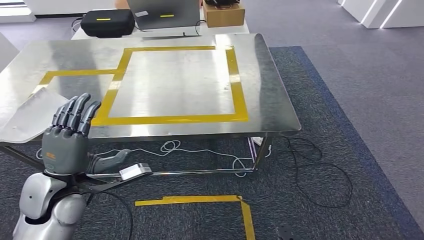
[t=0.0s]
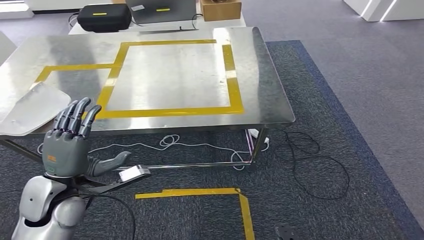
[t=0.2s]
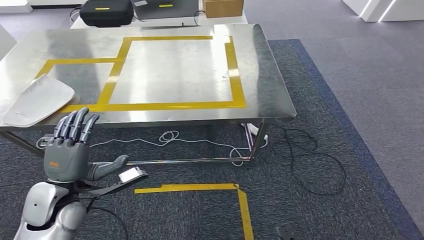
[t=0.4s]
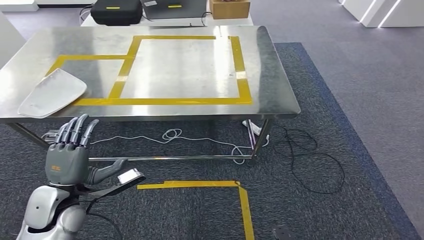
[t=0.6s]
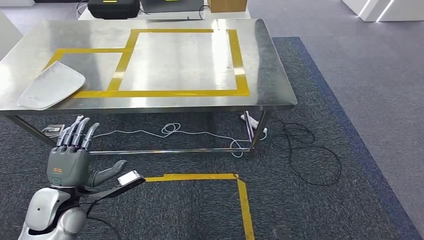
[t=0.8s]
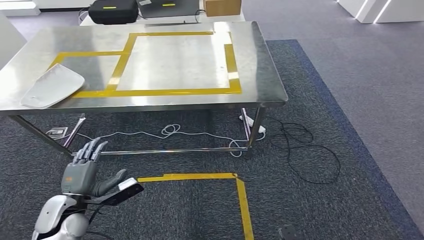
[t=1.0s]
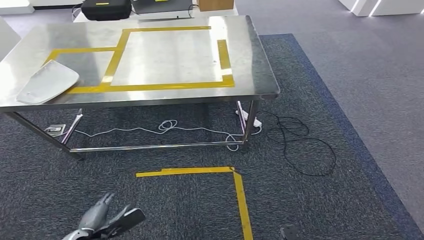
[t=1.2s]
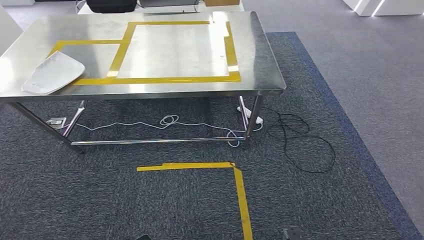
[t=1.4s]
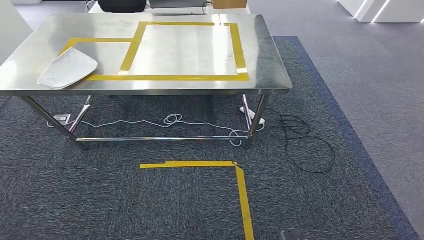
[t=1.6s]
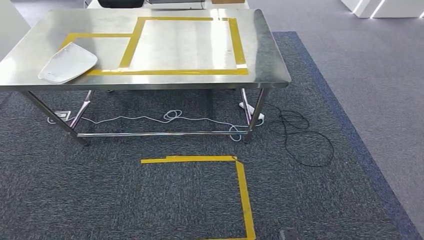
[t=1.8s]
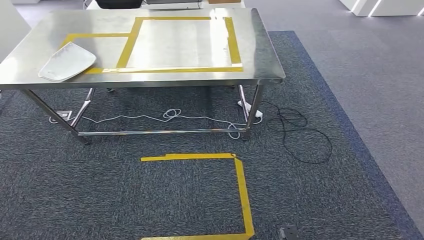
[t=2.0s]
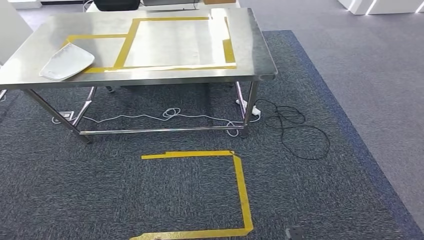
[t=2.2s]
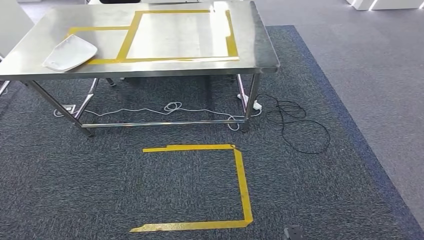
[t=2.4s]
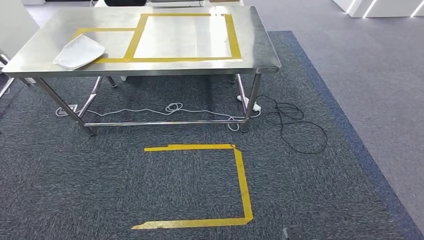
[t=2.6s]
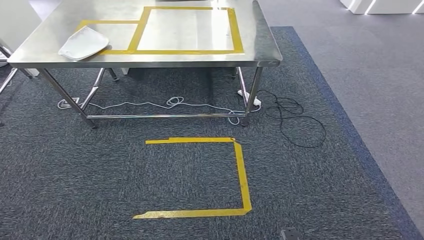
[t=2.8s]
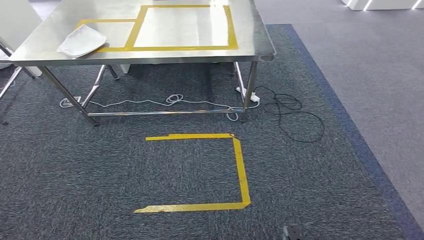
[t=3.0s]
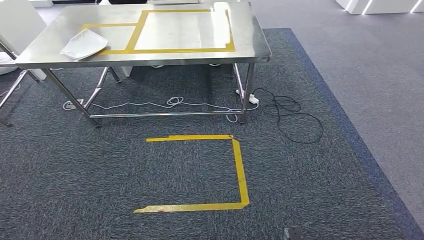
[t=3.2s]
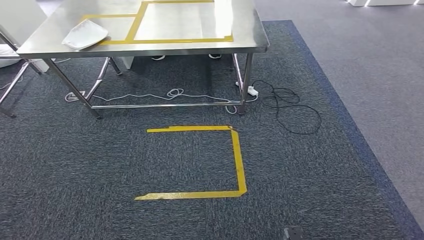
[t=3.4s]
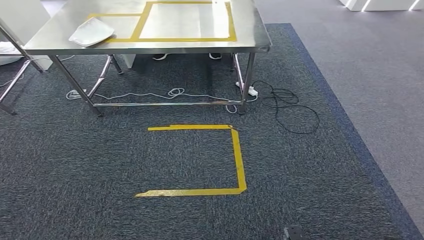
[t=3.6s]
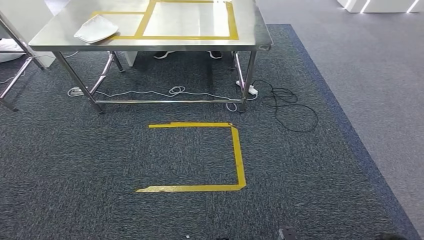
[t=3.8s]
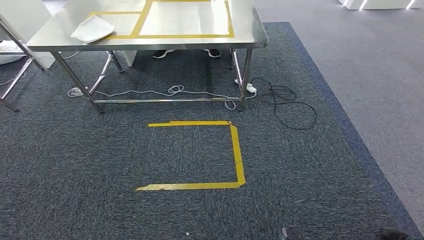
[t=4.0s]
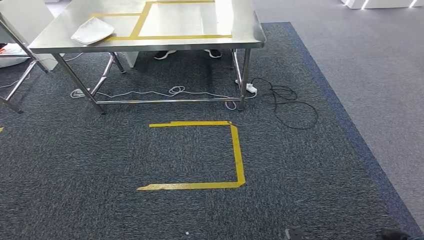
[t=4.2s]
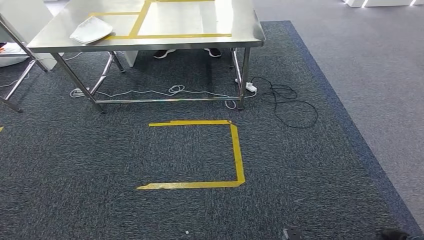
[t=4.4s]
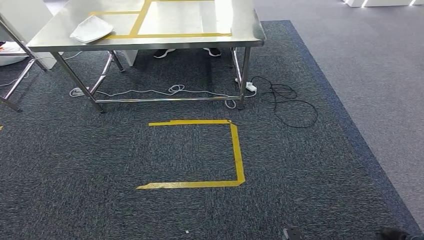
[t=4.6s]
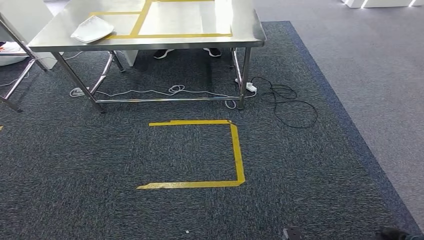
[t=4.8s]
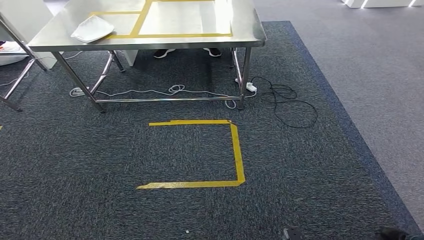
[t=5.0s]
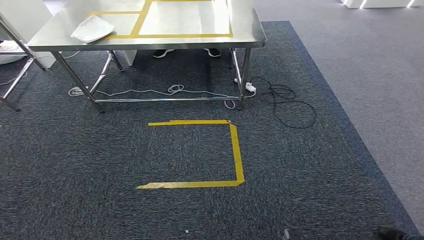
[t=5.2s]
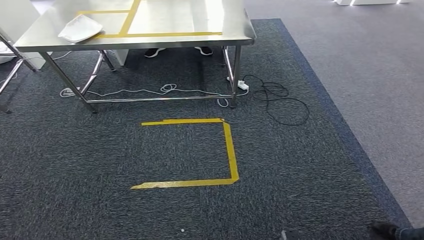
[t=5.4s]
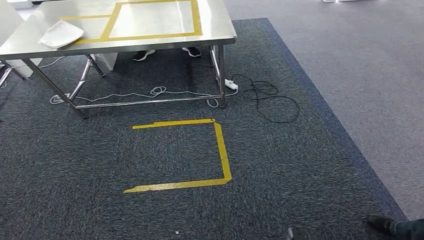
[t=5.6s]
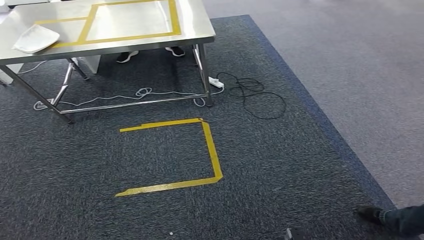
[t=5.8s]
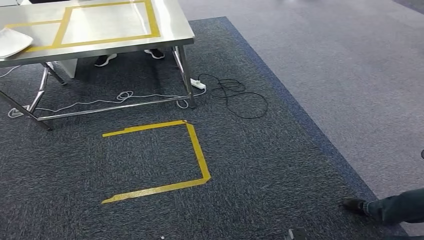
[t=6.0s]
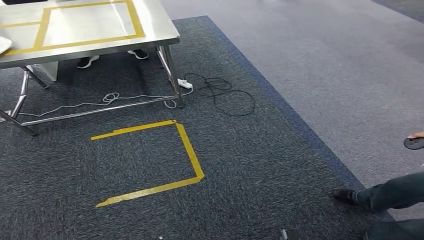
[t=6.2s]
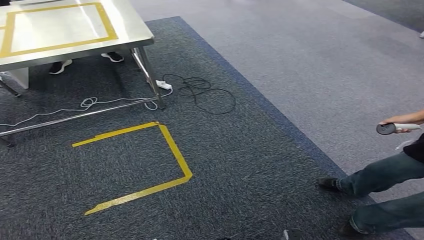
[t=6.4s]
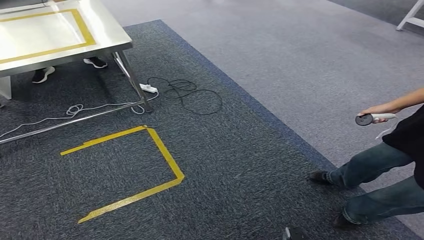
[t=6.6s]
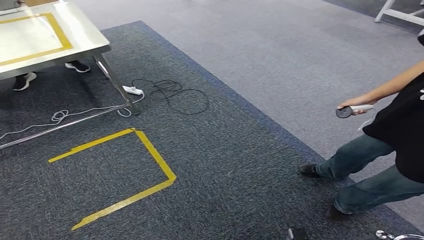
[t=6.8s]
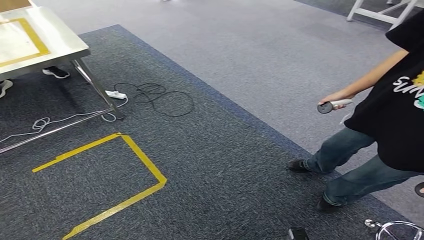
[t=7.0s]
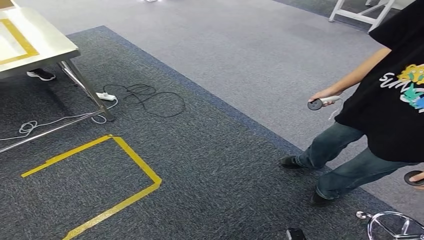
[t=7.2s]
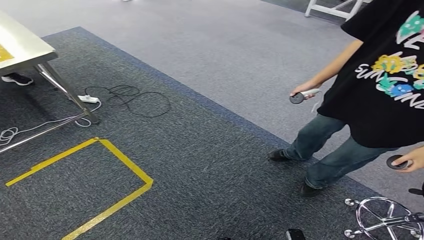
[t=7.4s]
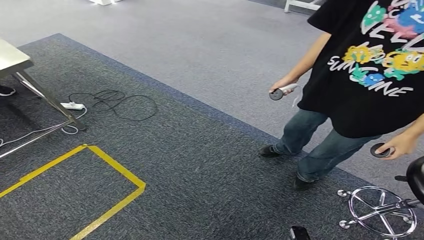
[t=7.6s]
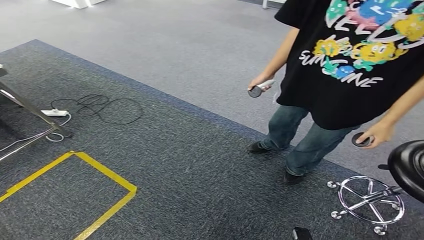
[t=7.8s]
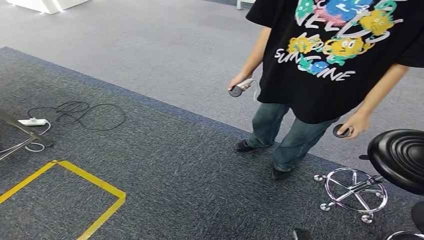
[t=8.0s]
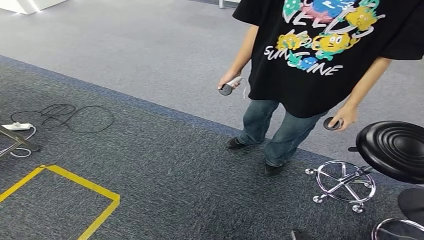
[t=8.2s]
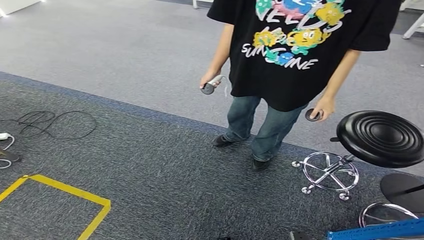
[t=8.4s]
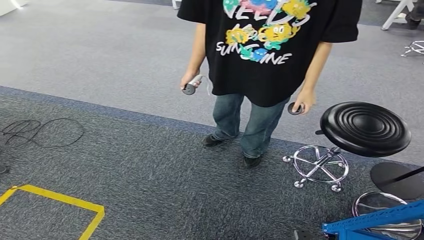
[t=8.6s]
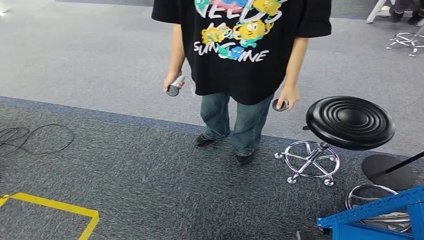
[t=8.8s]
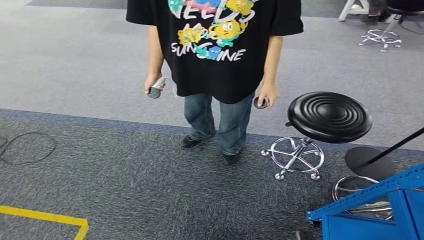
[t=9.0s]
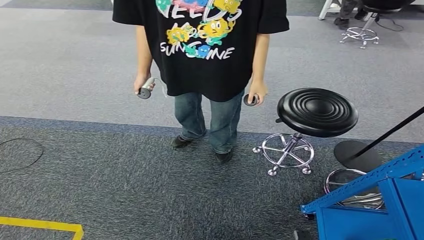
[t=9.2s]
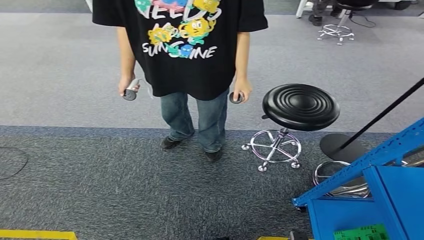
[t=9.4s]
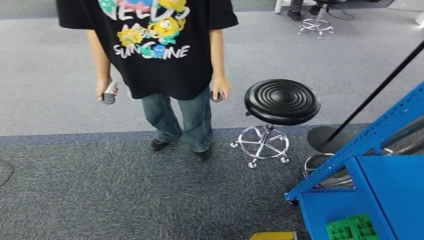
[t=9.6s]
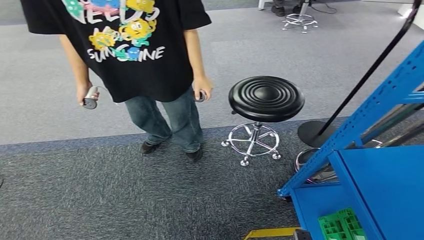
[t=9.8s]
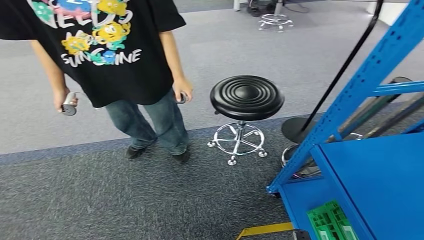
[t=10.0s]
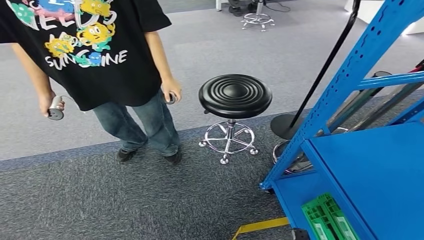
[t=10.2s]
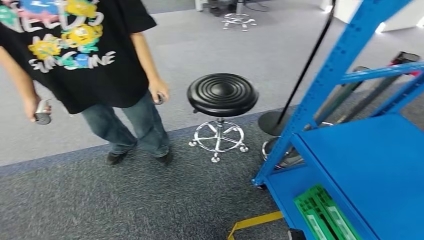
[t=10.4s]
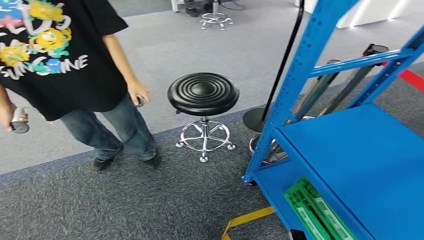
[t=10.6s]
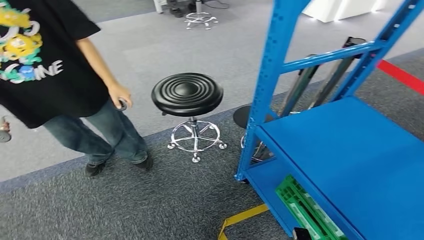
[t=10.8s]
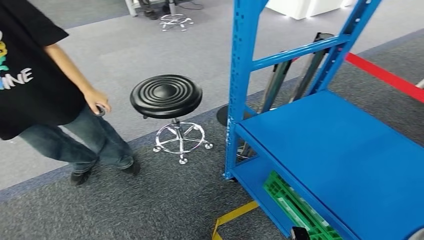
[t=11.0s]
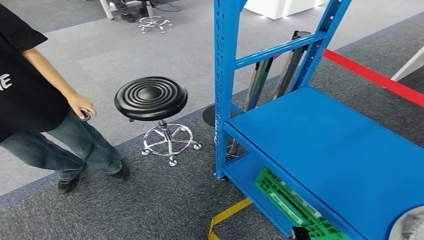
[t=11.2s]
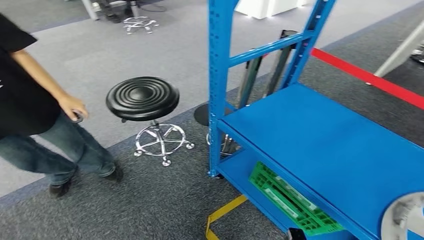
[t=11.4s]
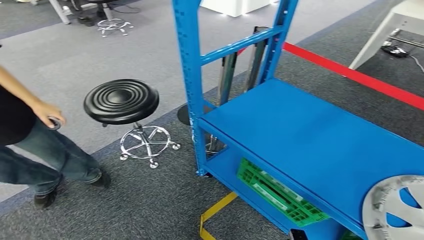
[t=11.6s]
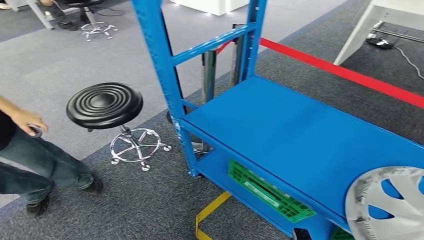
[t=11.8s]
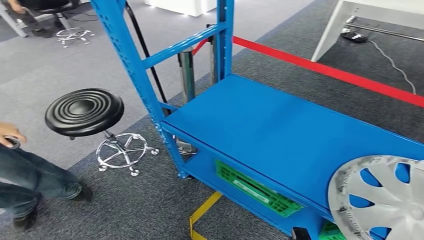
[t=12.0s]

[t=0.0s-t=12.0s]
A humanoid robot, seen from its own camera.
Step, t=0.0s to t=3.4s: Insert the small component into the corresponding slot on the workbench.
t=3.0s to t=4.4s: Both hands stay about where they are.

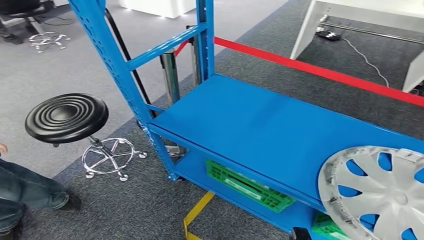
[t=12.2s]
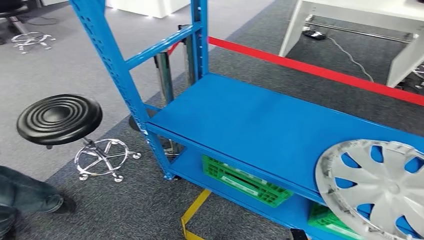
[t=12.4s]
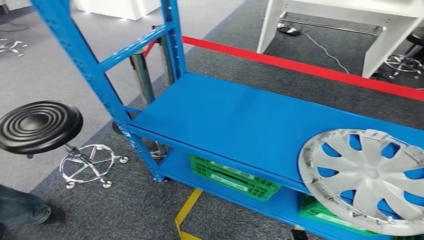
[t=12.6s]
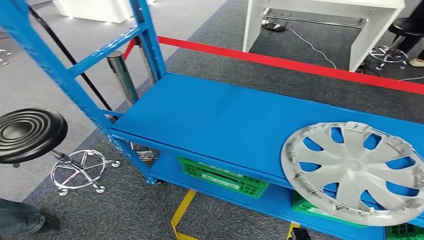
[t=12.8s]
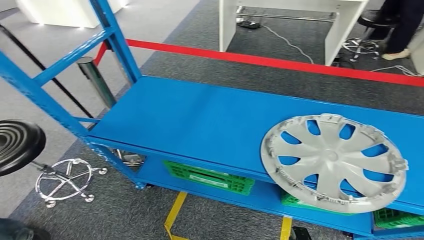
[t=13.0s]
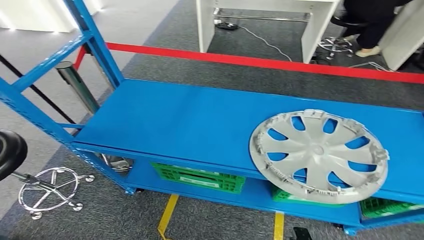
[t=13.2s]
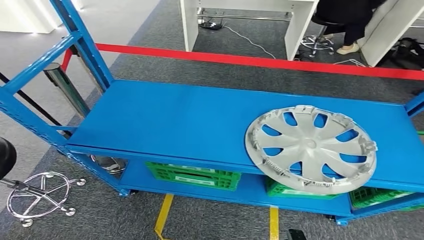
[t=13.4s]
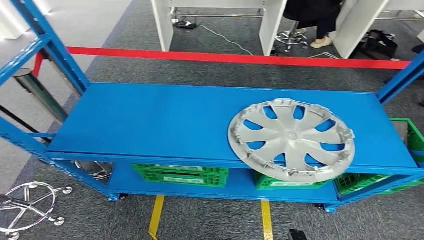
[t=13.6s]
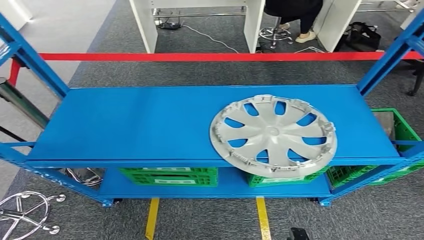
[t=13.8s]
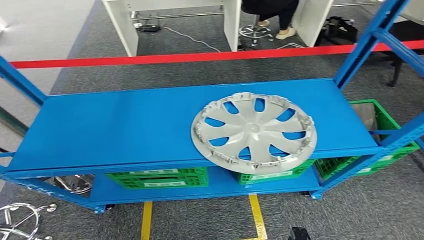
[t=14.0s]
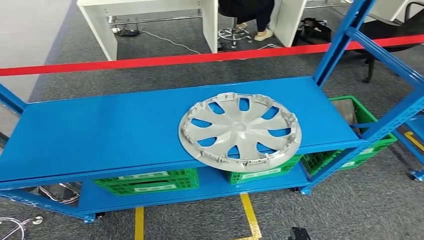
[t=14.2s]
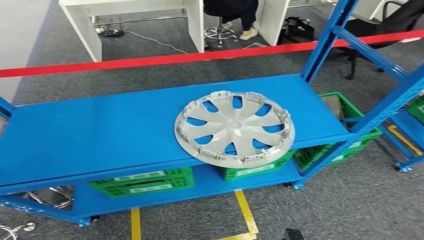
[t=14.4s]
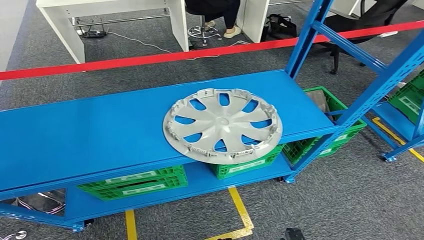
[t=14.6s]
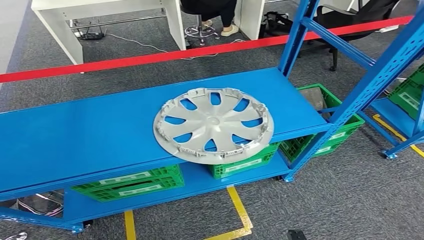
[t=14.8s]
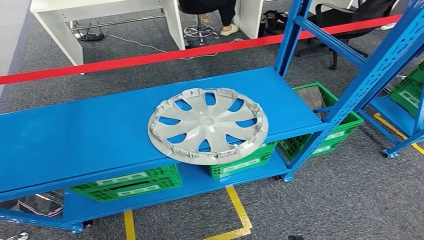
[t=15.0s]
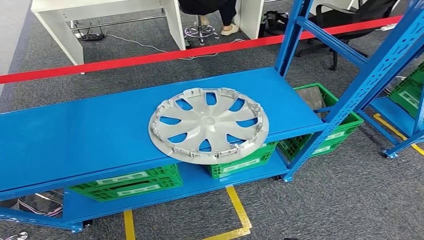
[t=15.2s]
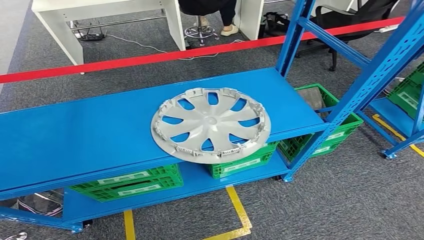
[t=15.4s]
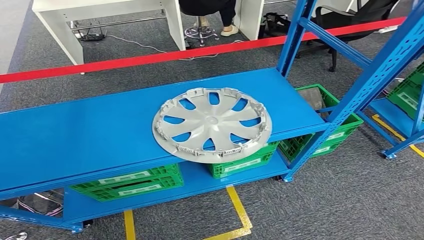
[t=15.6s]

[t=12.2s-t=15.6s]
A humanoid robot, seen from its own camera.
Step, t=12.2s to t=15.6s: Return to the initial position at the workbench.
